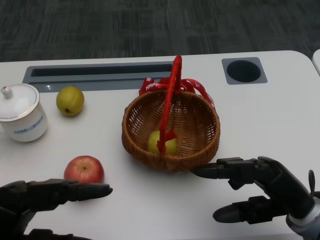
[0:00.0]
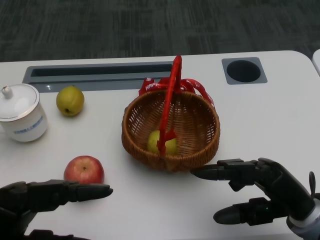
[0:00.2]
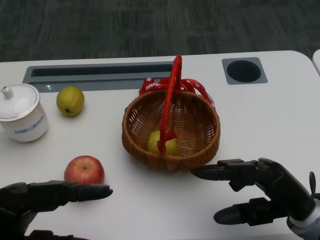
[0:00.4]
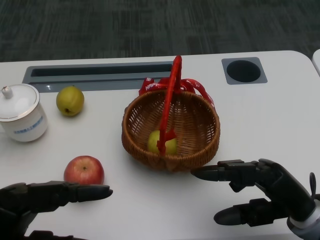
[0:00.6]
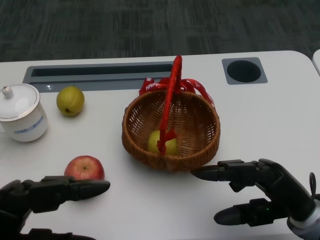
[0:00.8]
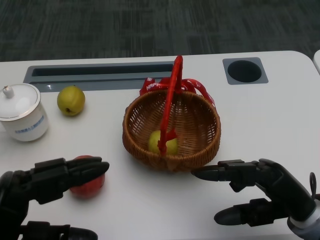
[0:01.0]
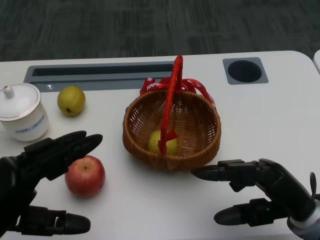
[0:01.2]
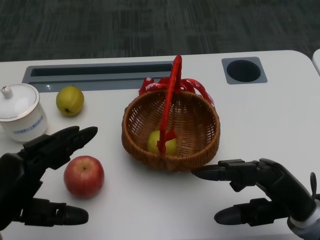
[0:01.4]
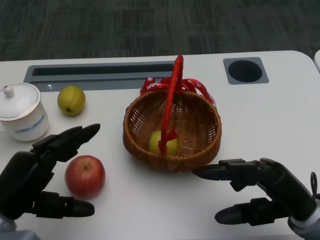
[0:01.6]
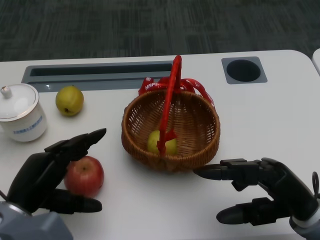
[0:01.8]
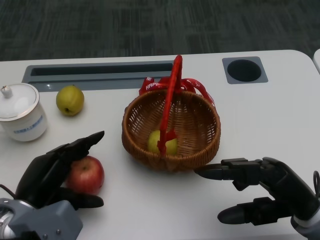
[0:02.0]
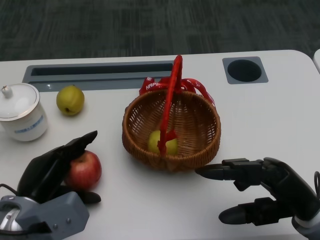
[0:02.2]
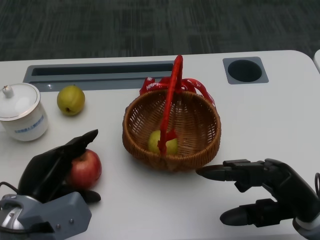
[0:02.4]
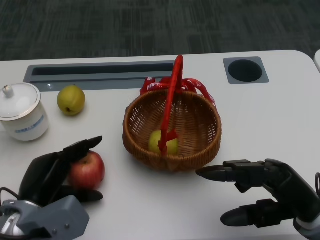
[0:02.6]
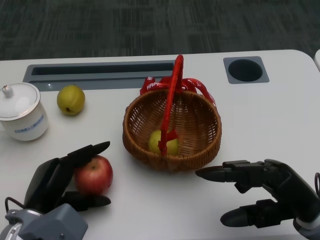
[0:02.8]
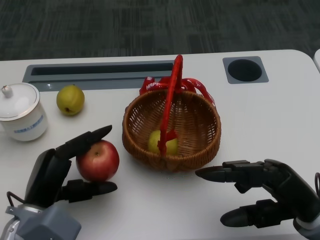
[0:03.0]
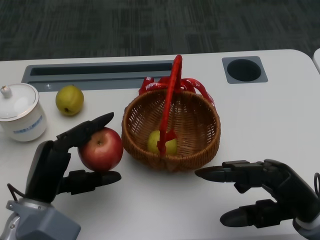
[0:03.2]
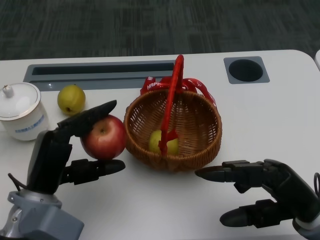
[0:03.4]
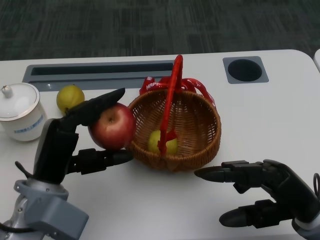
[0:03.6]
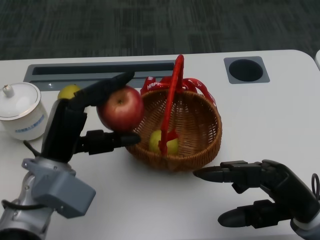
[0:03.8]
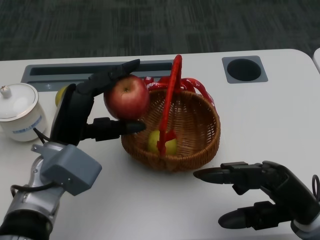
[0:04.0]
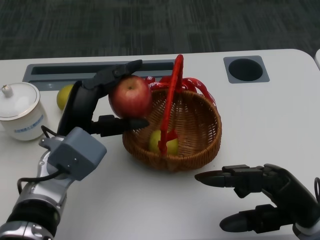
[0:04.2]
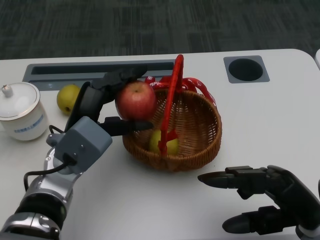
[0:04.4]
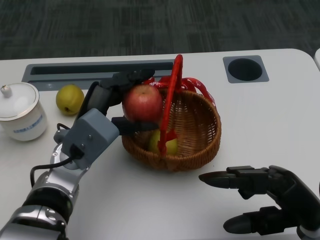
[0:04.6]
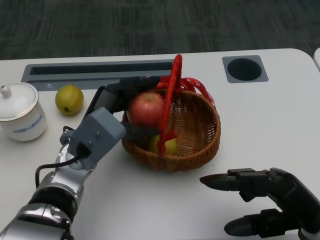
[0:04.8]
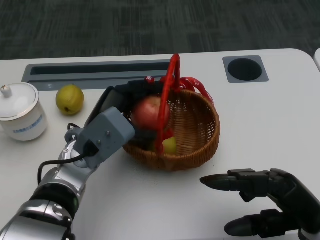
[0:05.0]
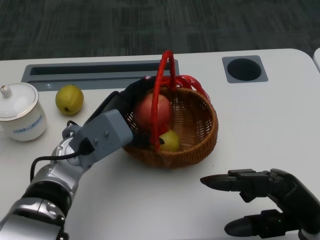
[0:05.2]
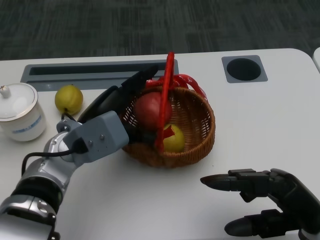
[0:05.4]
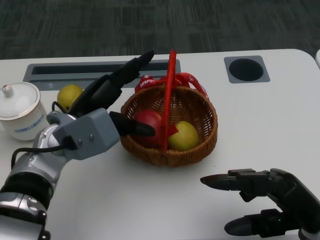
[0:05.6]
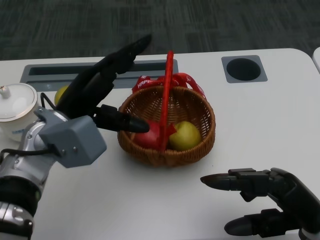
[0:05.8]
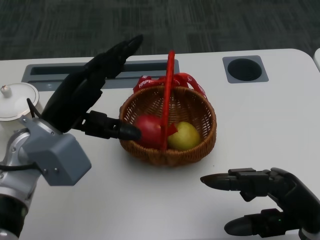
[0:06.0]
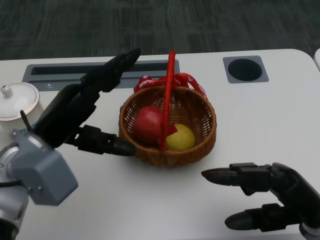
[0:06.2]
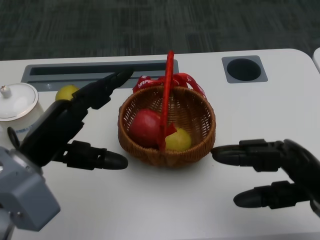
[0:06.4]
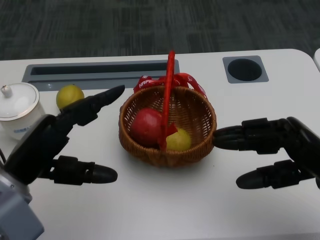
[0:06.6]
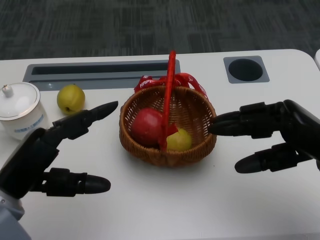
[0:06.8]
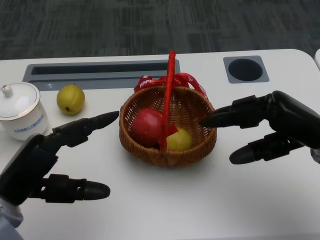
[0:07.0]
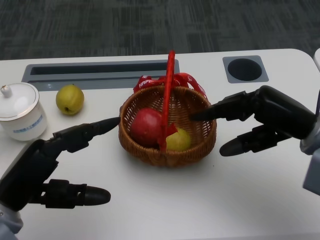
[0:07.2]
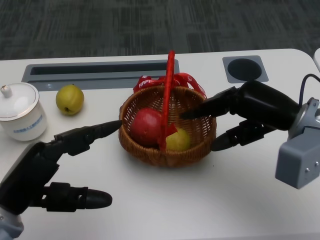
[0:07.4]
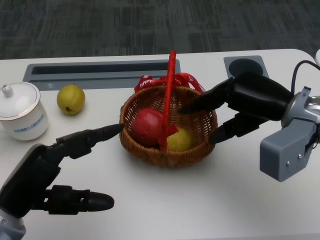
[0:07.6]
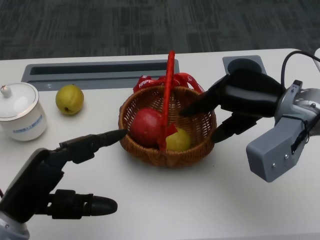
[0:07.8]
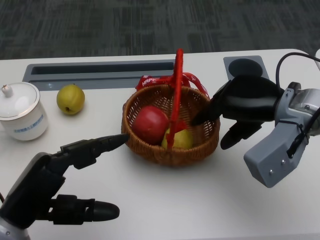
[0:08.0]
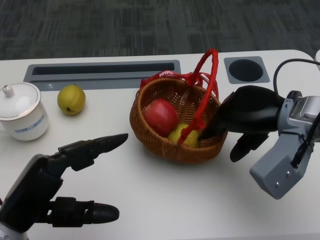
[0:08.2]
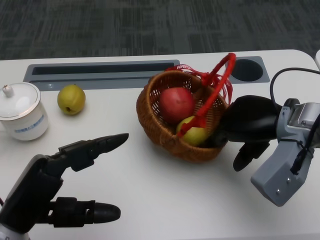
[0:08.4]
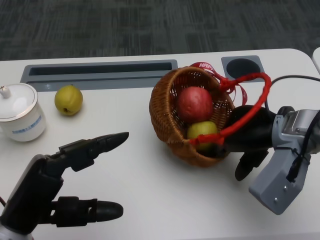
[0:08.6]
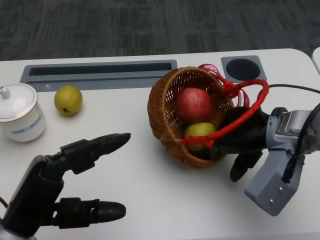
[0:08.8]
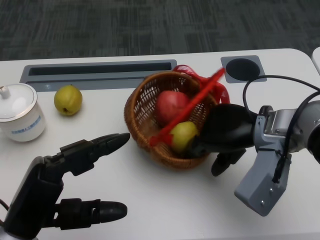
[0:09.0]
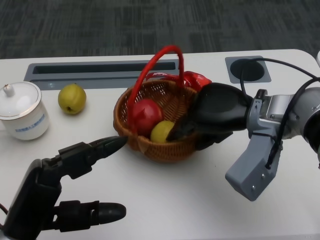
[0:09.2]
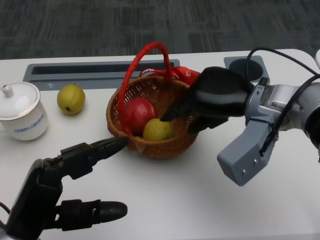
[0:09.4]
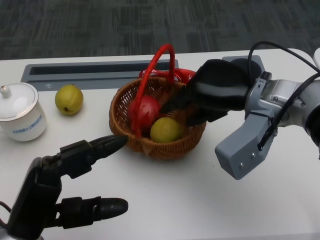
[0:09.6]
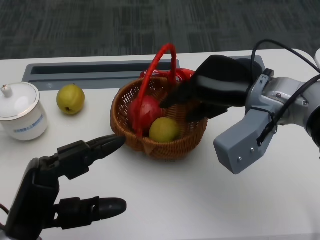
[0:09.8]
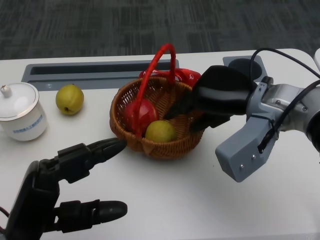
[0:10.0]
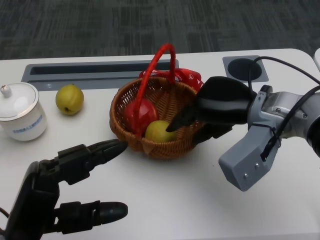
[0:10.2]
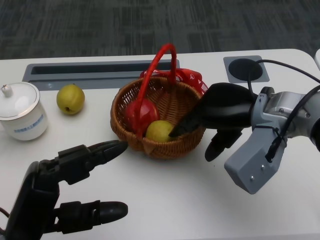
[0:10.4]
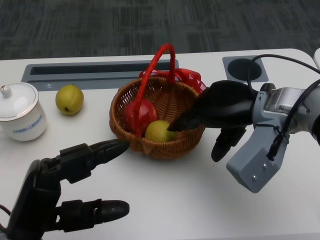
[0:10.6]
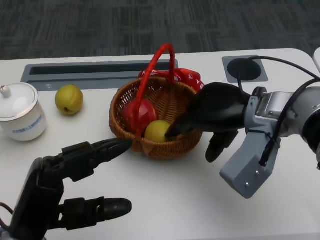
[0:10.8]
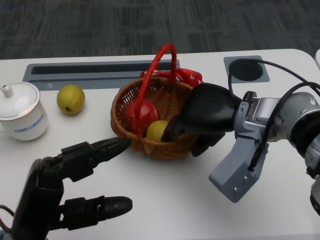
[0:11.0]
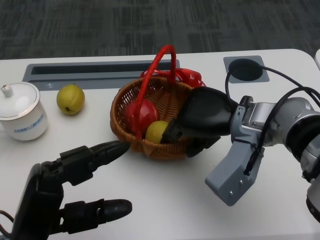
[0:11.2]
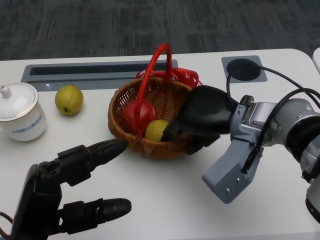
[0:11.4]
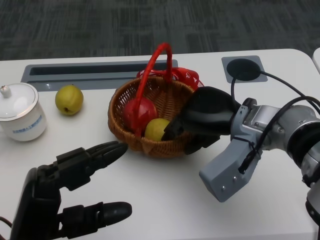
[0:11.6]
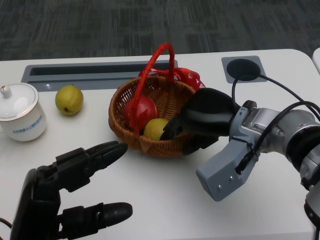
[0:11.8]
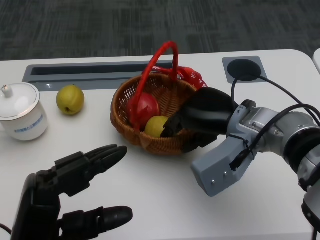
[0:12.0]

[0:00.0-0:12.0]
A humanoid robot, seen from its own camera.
Step, 0:00.6 to 0:02.2: Grasp the apple with the left gripper.
Step, 0:02.4 to 0:04.4: Place the apple into the basket with the left gripper.
Step, 0:04.6 to 0:09.0: Grasp the basket with the right gripper.
Step, 0:09.2 to 0:11.6: Move the basket to the front of the table with the right gripper.
0:01.6 to 0:03.0: The left hand goes approximately 5 cm downward.
0:03.0 to 0:04.4: The left hand travels forward, upward and to the right by roughly 10 cm.
0:04.4 to 0:06.0: The left hand moves approximately 5 cm.
0:06.0 to 0:07.6: The right hand is displaced forward and upward by some 15 cm. Meanwhile the left hand shifts roughly 10 cm backward and to the left.

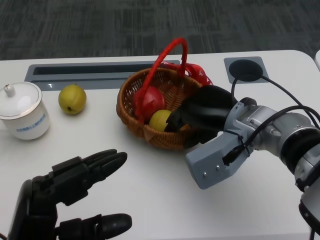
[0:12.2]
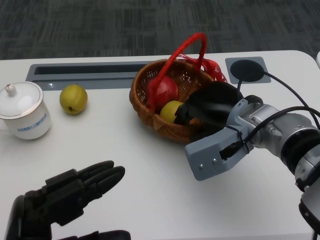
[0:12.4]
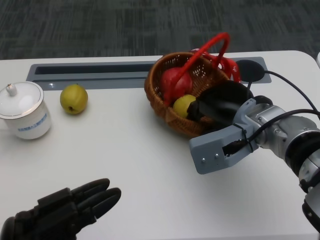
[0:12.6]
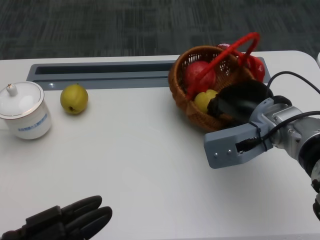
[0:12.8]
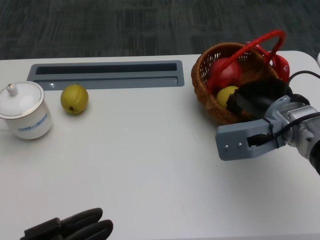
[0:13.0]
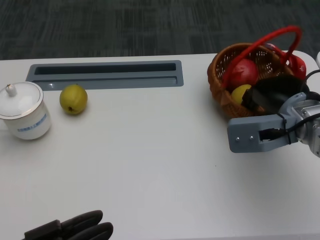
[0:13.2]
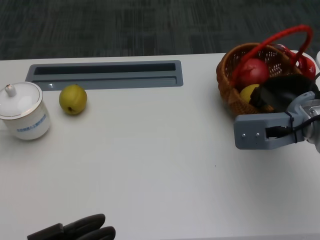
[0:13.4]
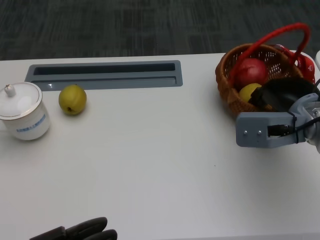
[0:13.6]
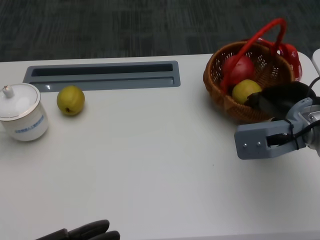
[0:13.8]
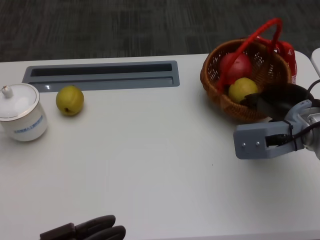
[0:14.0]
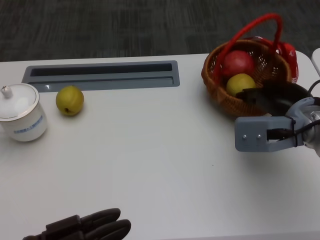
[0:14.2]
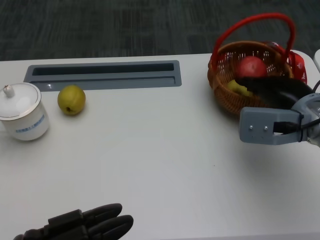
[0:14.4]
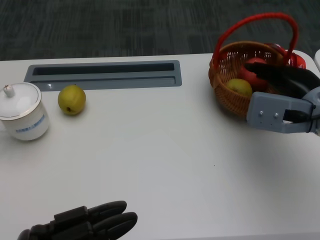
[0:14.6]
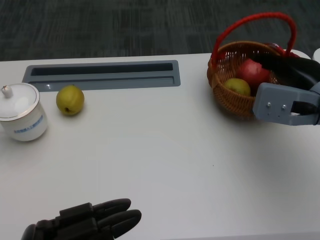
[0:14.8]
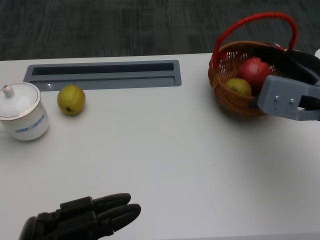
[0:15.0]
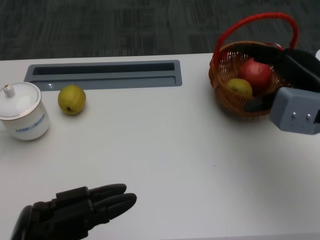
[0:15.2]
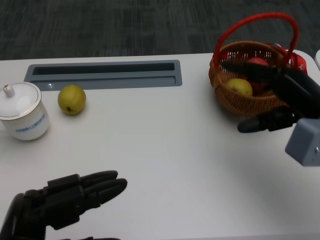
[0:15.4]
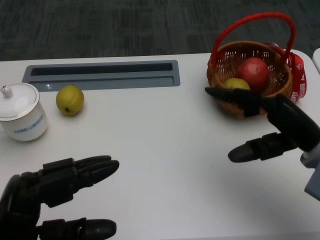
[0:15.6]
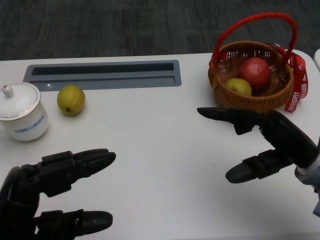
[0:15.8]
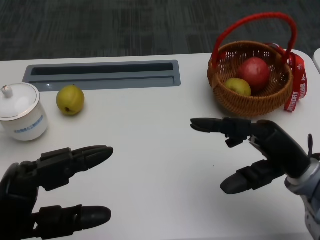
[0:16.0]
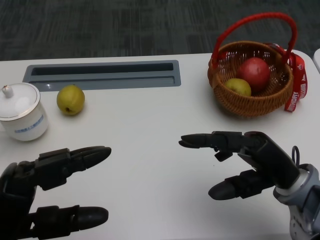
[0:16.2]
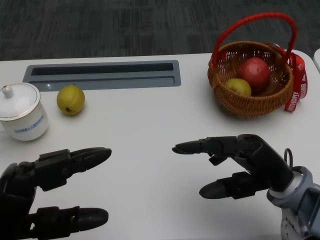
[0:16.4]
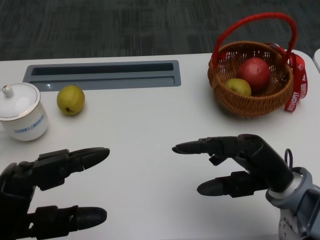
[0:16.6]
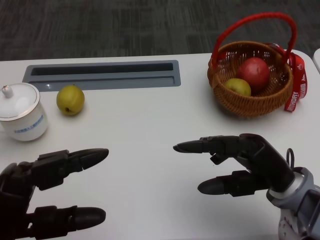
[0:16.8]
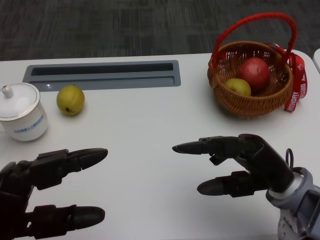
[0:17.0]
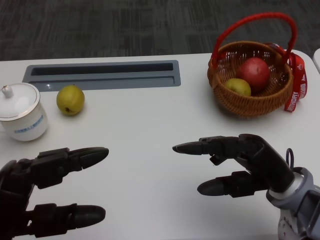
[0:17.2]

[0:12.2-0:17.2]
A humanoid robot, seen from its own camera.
0:12.2 to 0:13.8: The left hand shifts some 10 cm backward, while the right hand goes roughly 10 cm to the right.
0:13.8 to 0:15.6: The left hand moves forward, approximately 10 cm.
0:15.6 to 0:17.2: The right hand shifts by approximately 10 cm.

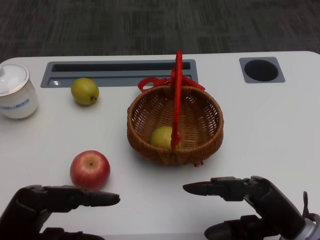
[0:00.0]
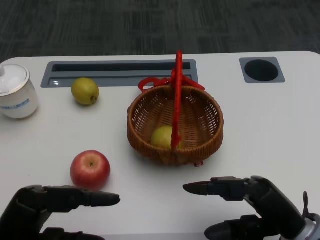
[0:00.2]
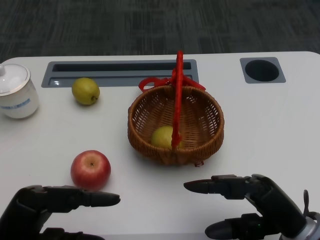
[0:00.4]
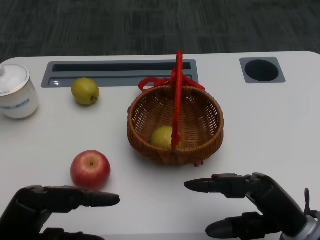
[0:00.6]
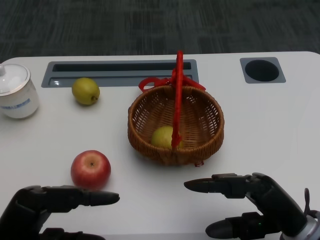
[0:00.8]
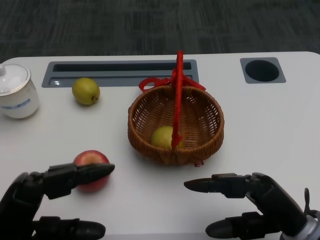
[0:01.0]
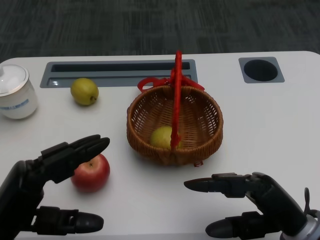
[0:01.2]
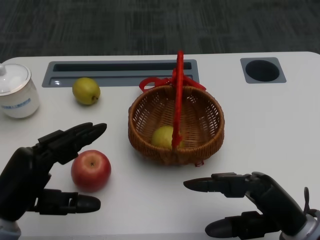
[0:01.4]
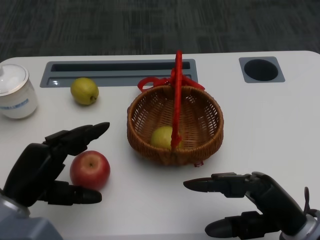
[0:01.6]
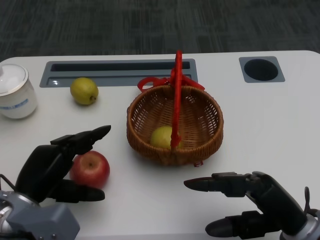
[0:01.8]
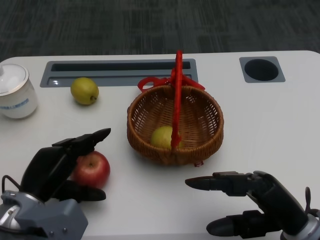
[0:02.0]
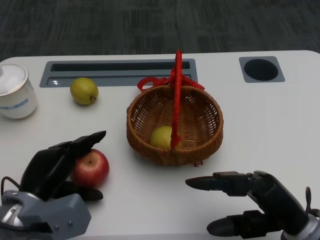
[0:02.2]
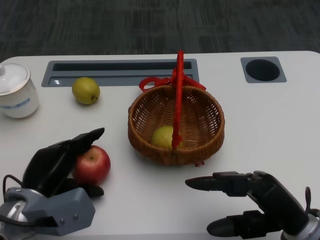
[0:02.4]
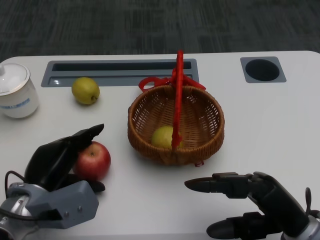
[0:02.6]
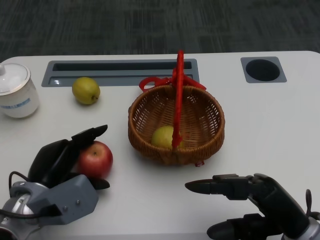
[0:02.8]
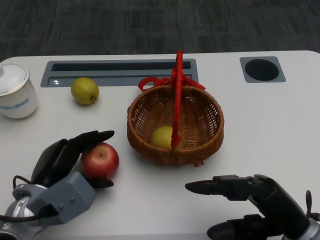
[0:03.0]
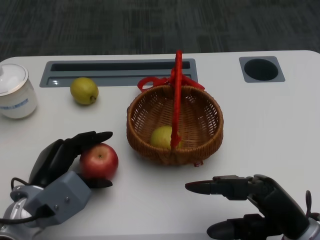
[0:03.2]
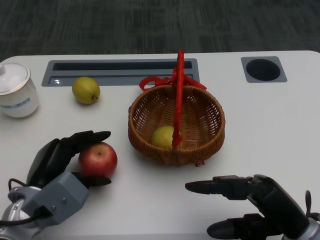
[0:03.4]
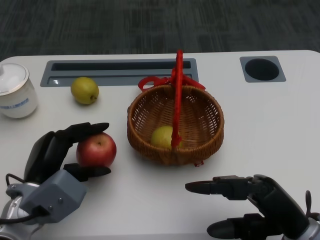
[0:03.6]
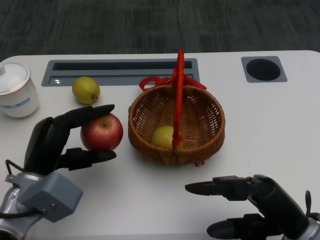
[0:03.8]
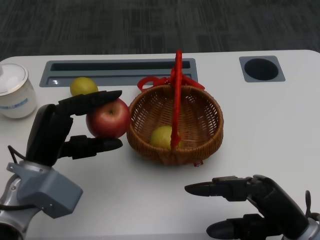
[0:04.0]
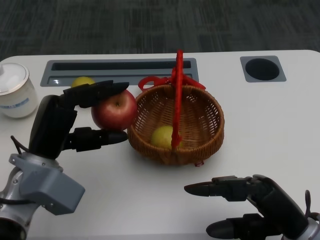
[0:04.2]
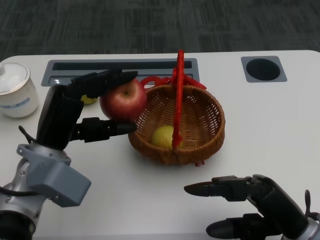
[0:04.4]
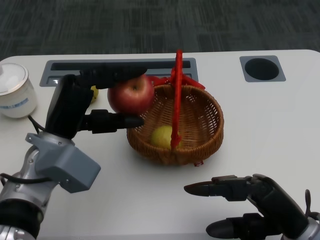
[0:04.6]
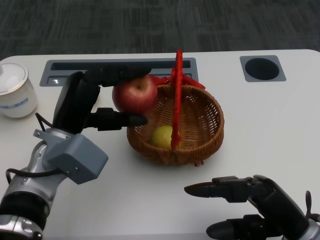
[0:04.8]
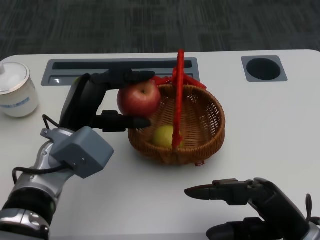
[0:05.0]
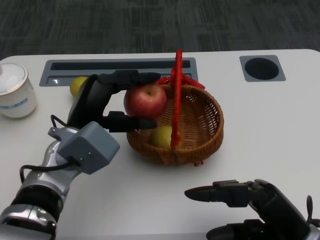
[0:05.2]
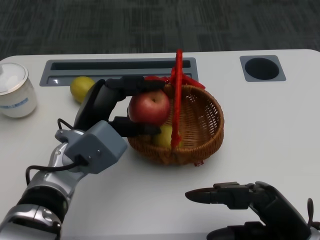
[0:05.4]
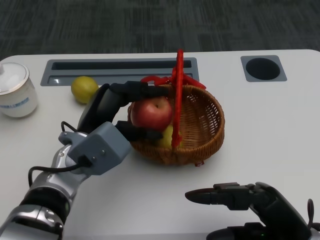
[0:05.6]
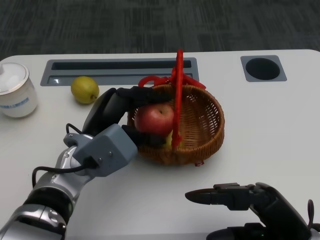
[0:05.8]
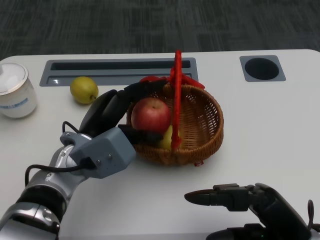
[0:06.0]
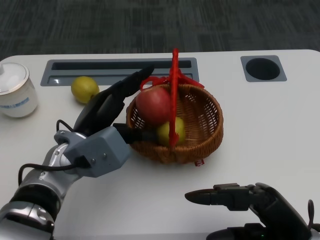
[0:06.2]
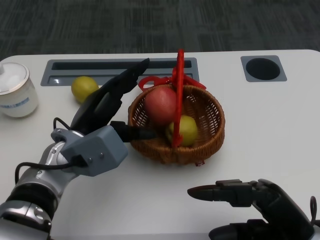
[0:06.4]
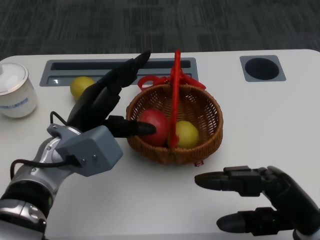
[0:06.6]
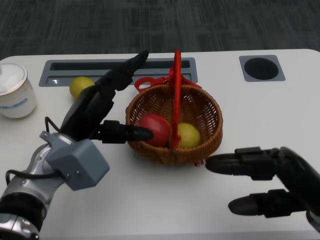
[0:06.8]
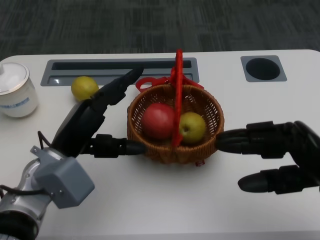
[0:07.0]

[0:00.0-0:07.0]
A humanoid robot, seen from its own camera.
Step, 0:00.0 to 0:02.4: Grasp the apple with the left gripper.
Step, 0:02.8 to 0:05.0: Place the apple into the basket with the left gripper.
0:01.4 to 0:02.8: The left hand shifts some 10 cm forward and downward.
0:02.8 to 0:04.2: The left hand goes roughly 5 cm upward.
0:04.2 to 0:05.6: The left hand shifts some 5 cm to the right.
0:05.6 to 0:07.0: The right hand shifts some 5 cm upward.
